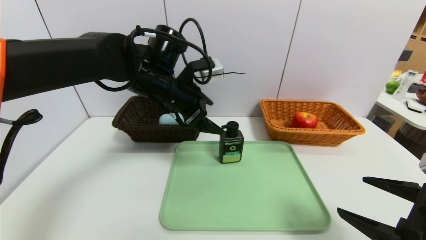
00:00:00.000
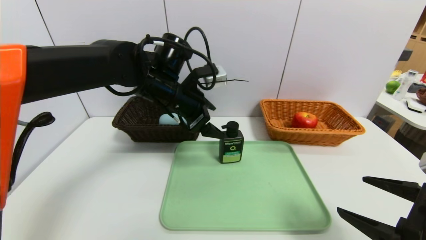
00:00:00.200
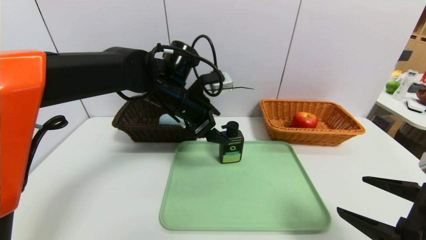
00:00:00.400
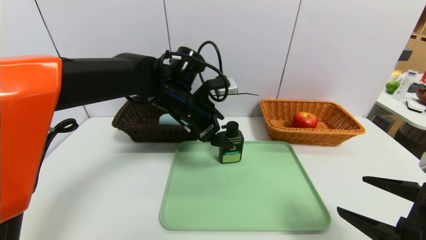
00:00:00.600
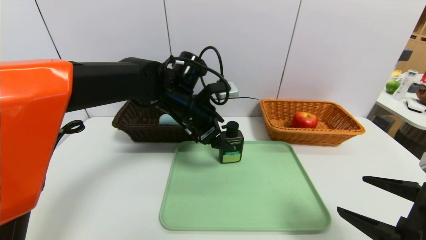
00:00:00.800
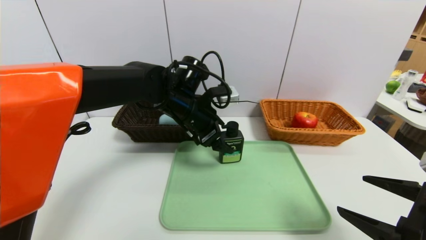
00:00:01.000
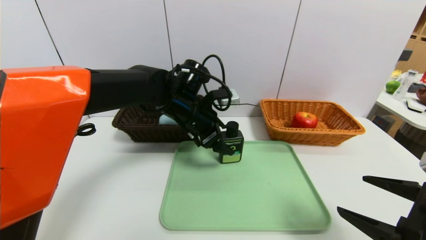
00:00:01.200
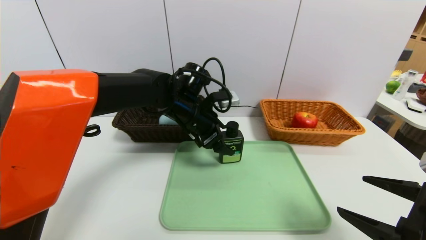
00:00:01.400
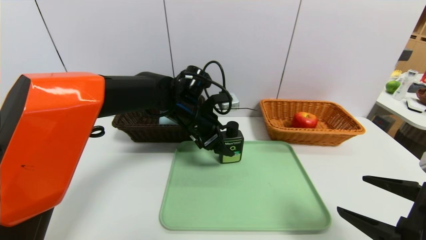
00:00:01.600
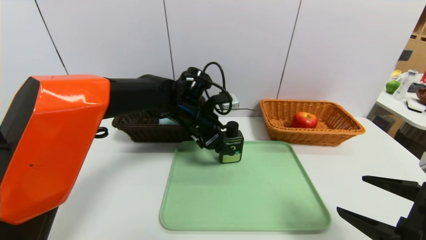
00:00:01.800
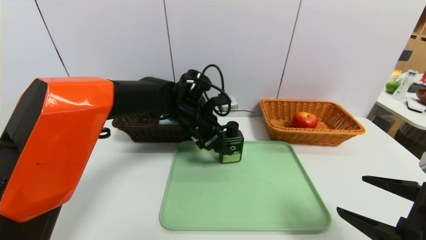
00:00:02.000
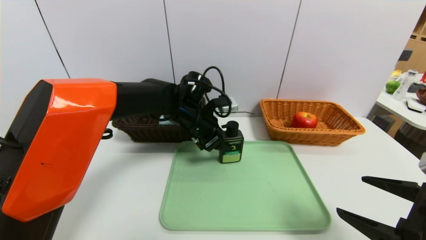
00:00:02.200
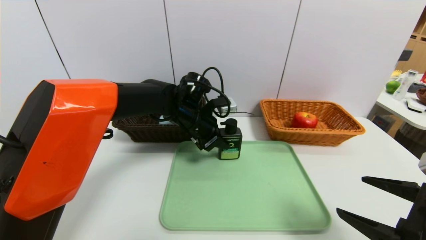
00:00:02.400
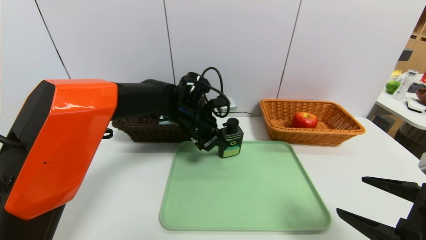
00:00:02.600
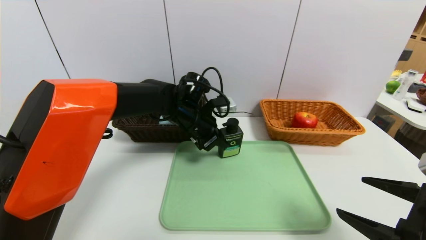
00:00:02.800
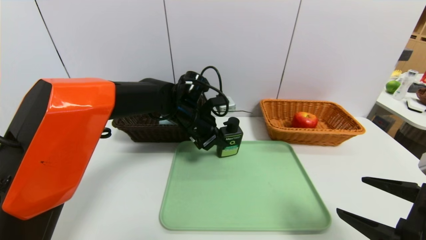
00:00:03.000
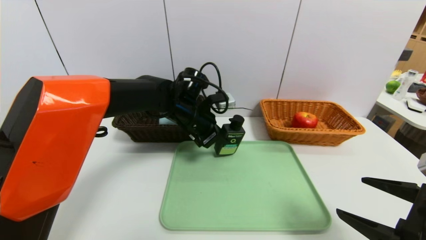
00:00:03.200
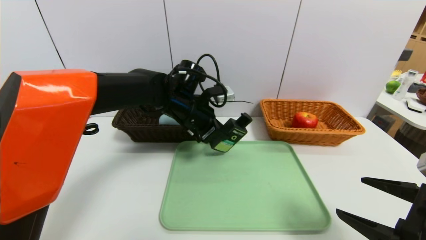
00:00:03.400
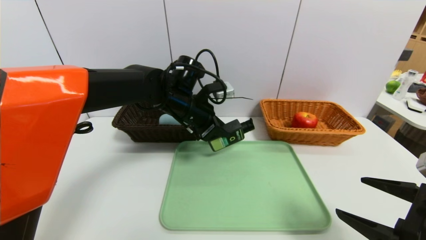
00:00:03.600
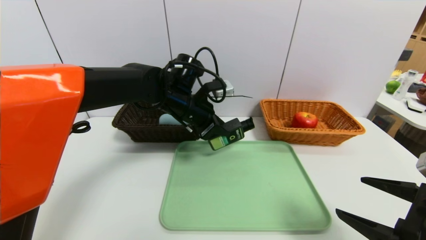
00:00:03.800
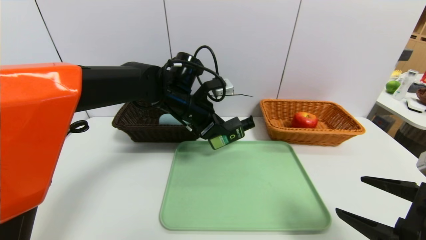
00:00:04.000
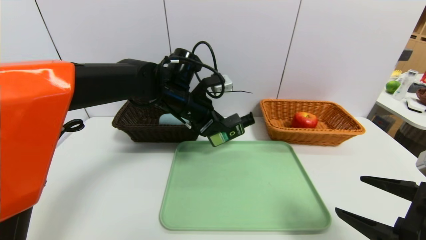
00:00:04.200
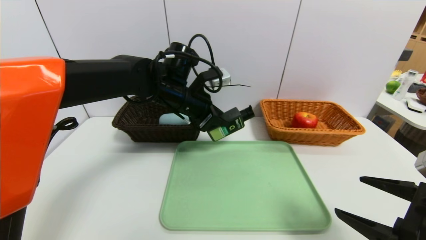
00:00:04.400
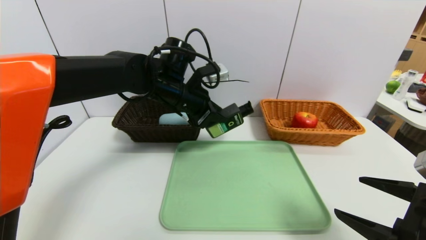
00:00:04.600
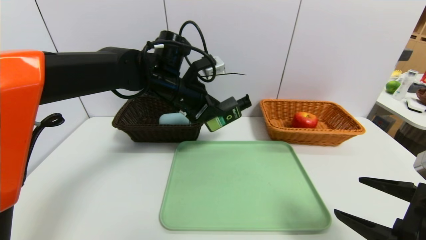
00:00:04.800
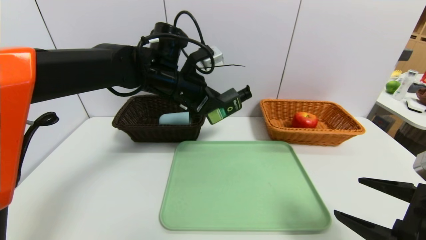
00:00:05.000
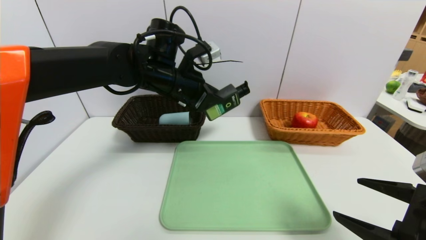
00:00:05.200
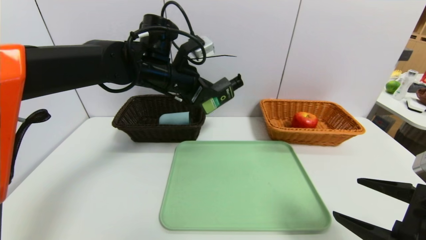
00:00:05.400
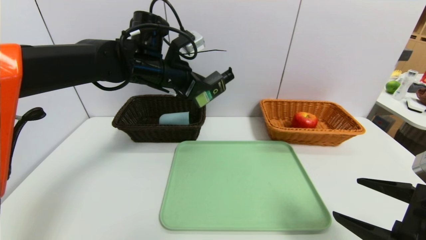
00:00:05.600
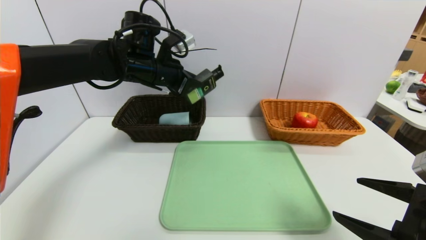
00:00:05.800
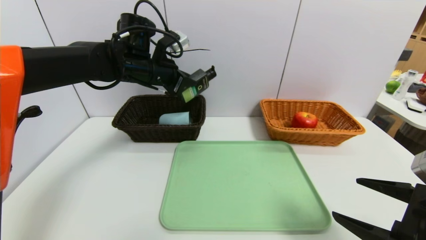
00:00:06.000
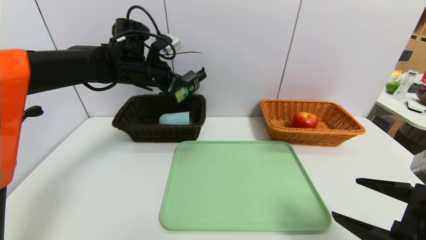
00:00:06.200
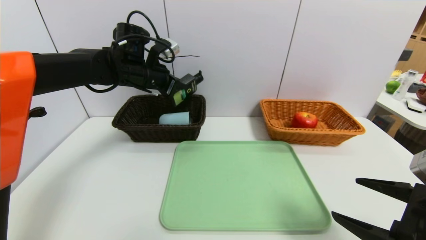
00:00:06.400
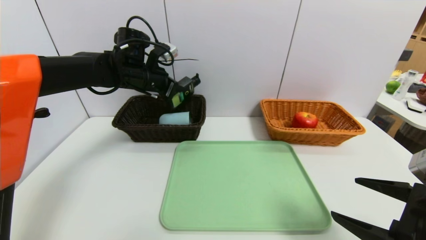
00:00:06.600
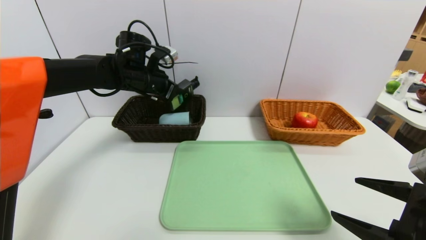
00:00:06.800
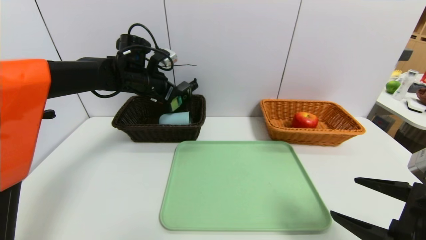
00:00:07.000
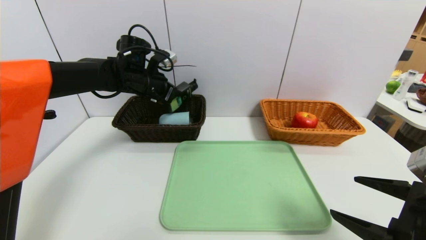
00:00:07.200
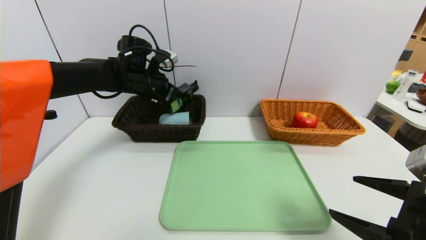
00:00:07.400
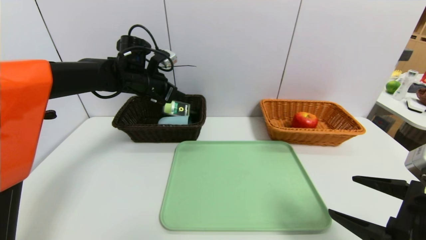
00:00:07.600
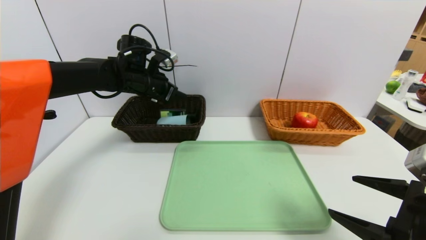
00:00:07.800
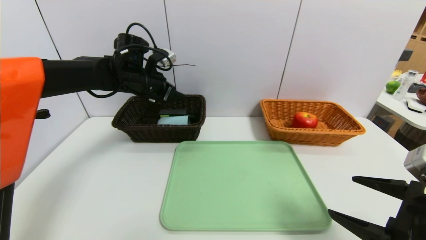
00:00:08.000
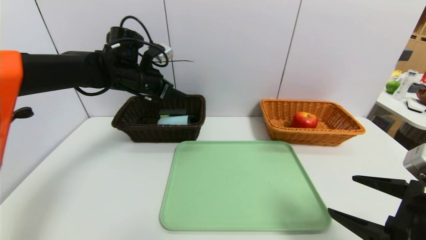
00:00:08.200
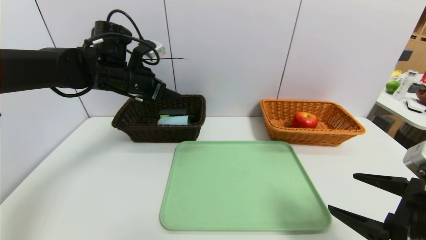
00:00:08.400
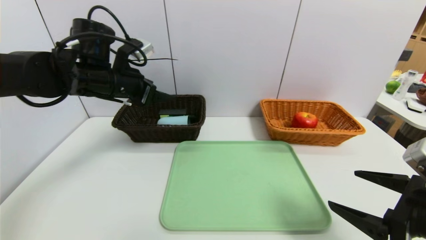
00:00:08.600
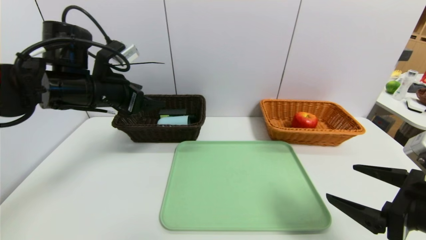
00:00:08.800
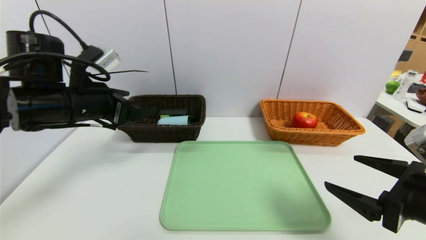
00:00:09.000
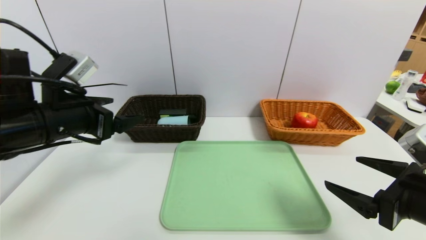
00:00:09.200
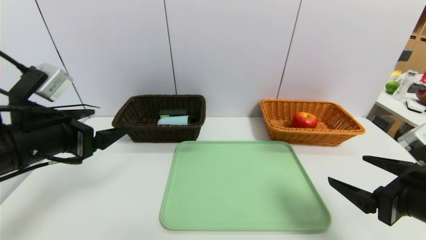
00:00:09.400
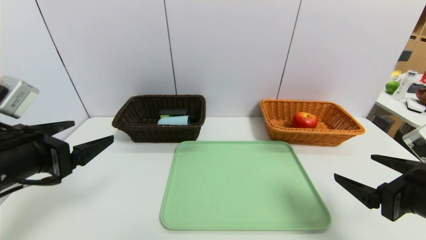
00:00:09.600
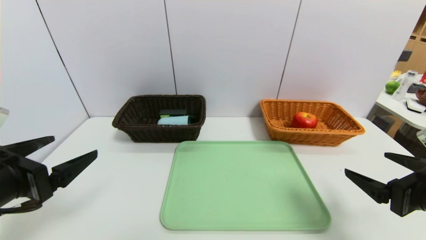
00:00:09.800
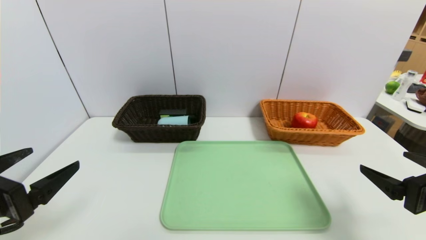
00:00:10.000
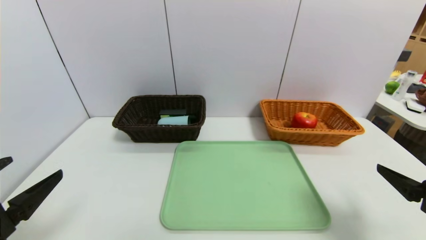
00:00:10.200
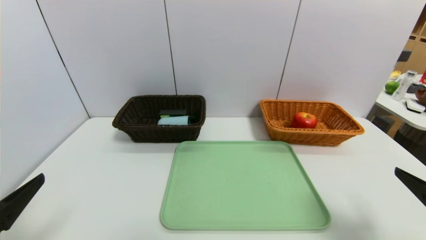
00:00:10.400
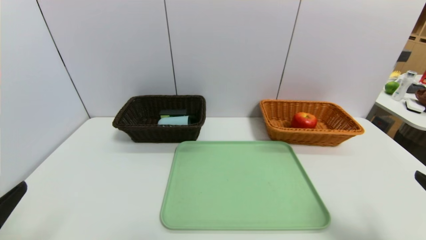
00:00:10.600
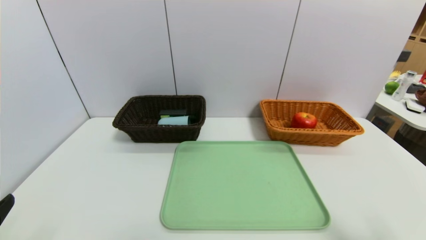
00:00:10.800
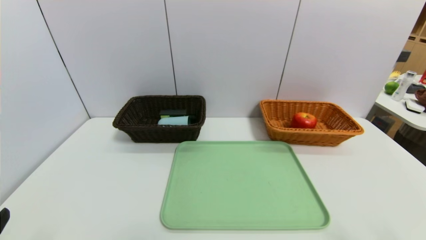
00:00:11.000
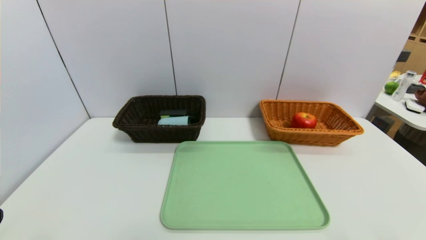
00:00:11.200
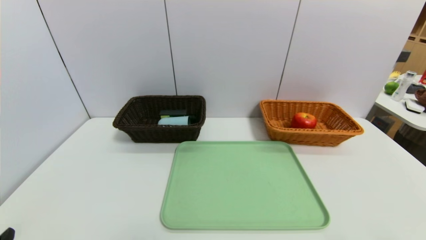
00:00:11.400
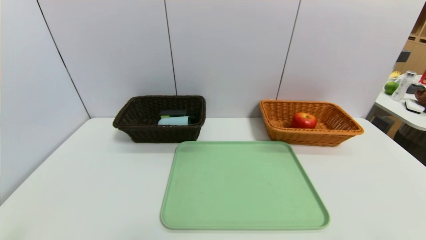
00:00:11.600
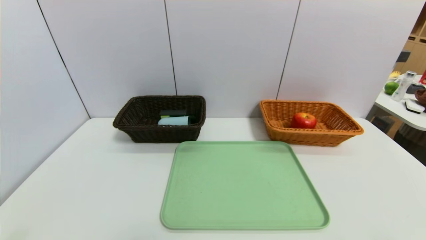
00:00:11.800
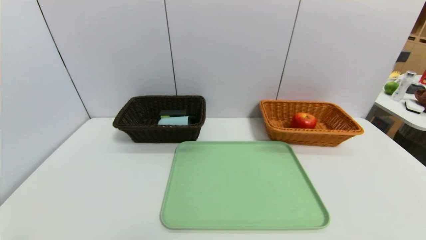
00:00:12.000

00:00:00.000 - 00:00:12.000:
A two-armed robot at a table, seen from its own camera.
Task of the whole recording: place the food in the right basket with the right gripper, and place the non food items in the left basket with the left gripper.
Step, 00:00:00.000 - 00:00:07.800: Grasp the hard cleanser and put it in the left basket.
00:00:00.000 - 00:00:01.600: The left gripper moves downward, roughly 5 cm.
00:00:01.600 - 00:00:03.000: The left gripper closes up.
00:00:03.000 - 00:00:04.400: The left gripper moves upward, about 5 cm.
00:00:04.400 - 00:00:06.000: The left gripper shifts roughly 10 cm to the left.
00:00:06.000 - 00:00:07.600: The left gripper moves some 5 cm.
00:00:07.600 - 00:00:09.000: The left gripper goes approximately 20 cm backward, and opens.
00:00:09.000 - 00:00:10.400: The right gripper heads to the right, covering approximately 5 cm, while the left gripper shifts roughly 20 cm backward.
00:00:10.400 - 00:00:12.000: The left gripper heads backward and downward, covering about 10 cm. The right gripper is displaced backward by roughly 10 cm.

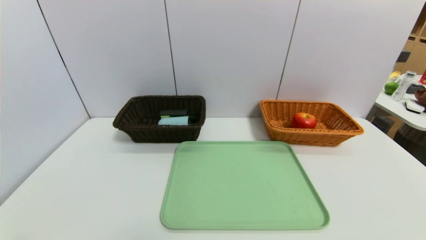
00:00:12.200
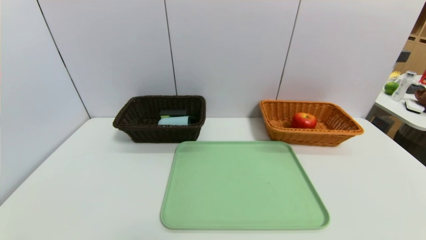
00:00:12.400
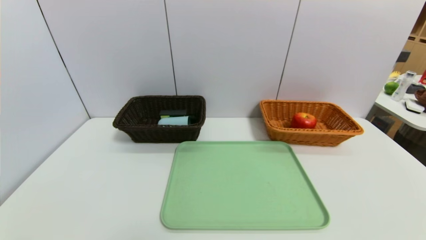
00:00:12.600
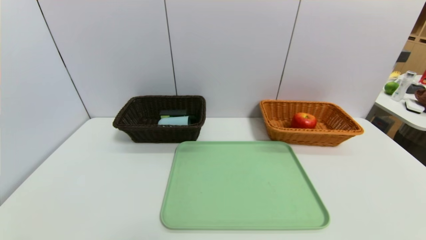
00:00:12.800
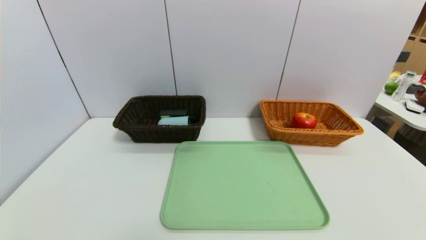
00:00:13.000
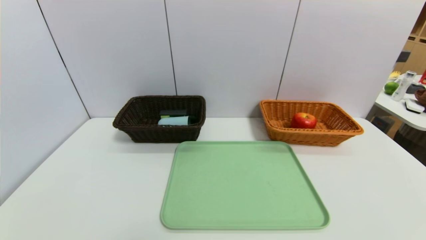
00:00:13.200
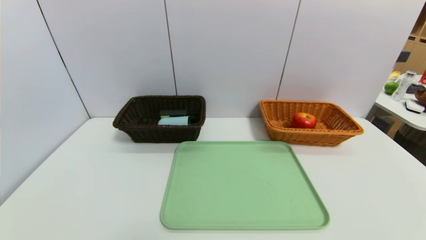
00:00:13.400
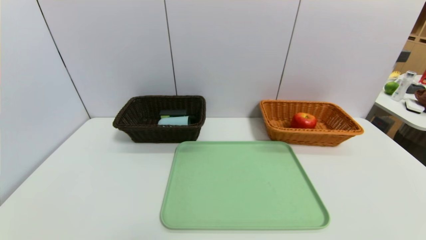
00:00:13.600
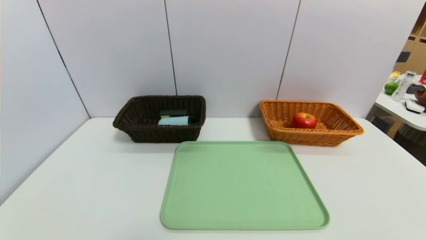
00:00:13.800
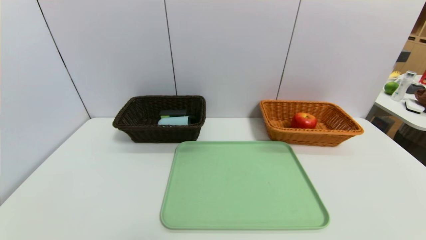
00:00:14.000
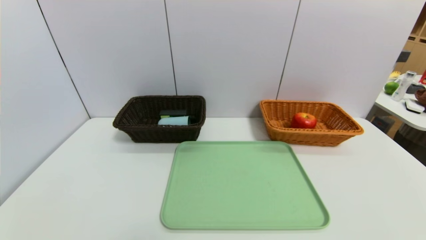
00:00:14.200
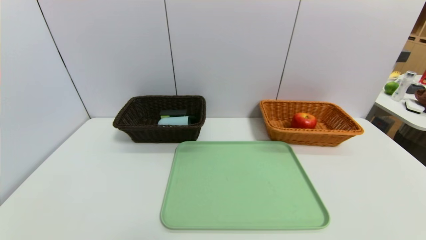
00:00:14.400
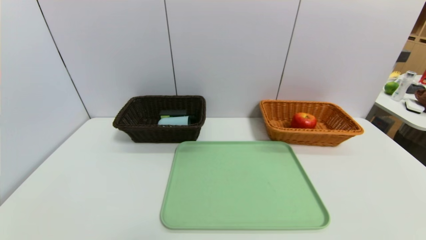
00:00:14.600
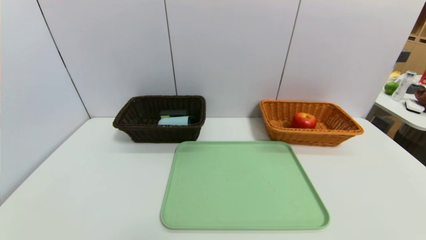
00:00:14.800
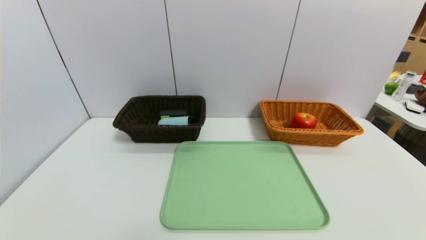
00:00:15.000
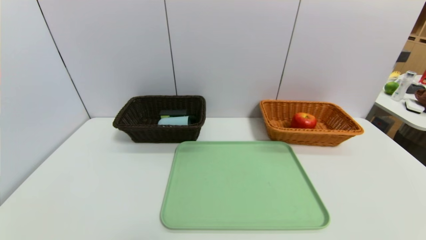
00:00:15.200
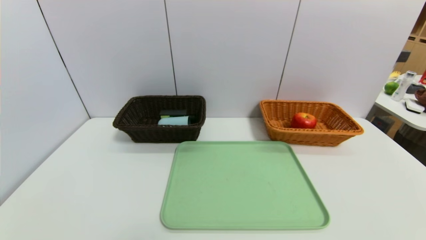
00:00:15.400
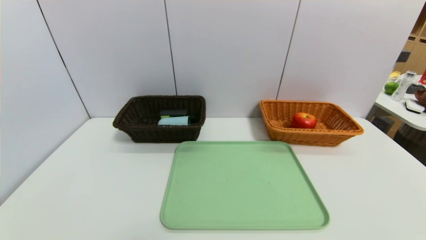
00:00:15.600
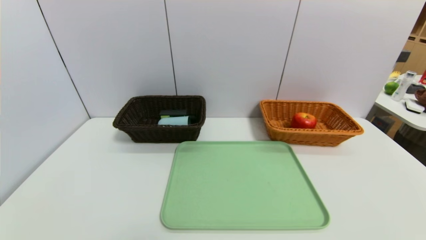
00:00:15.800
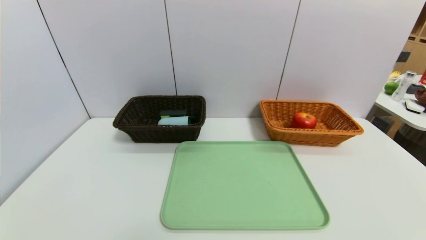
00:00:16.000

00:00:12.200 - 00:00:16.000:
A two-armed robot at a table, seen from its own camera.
Task of the whole recording: place the food in the right basket with the right gripper, and place the non food items in the left basket with the left gripper.
00:00:13.400 - 00:00:14.800: Both grippers stay about where they are.
00:00:14.800 - 00:00:16.000: Neither gripper changes place.

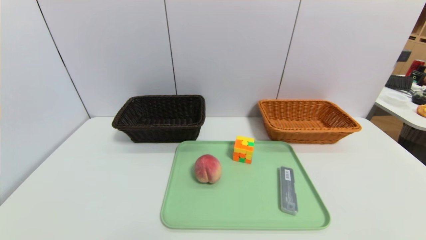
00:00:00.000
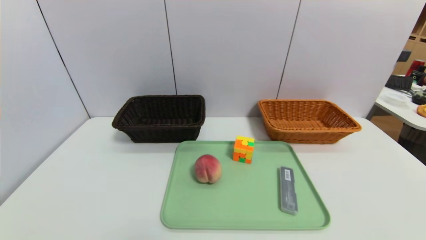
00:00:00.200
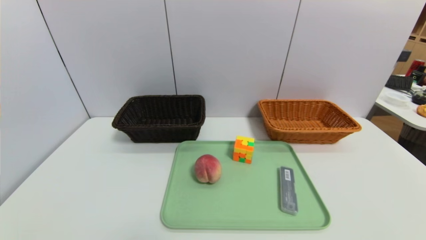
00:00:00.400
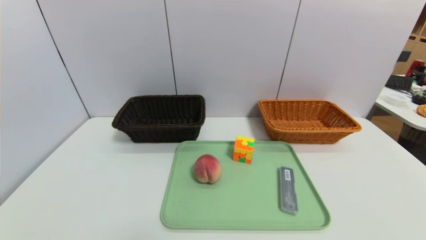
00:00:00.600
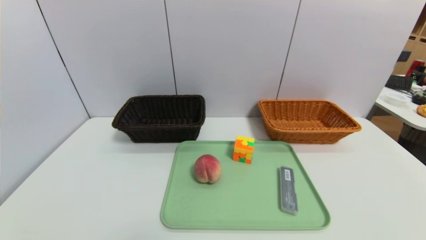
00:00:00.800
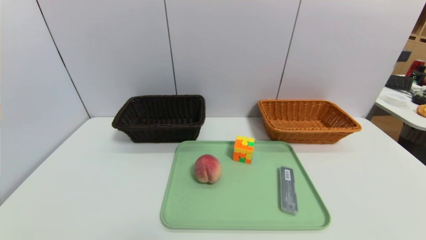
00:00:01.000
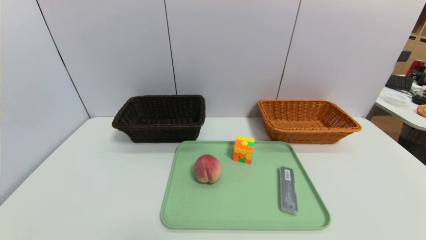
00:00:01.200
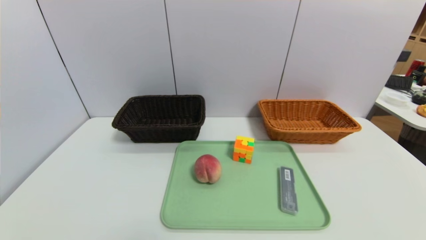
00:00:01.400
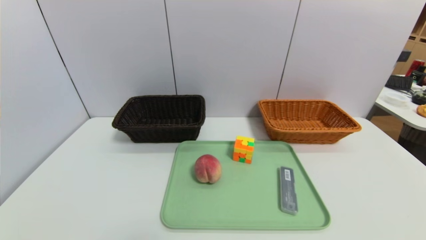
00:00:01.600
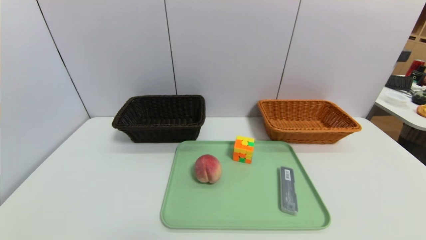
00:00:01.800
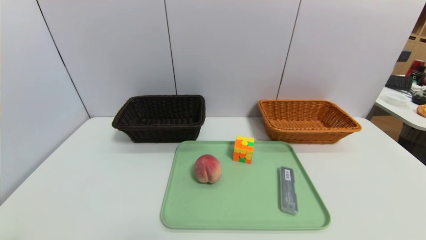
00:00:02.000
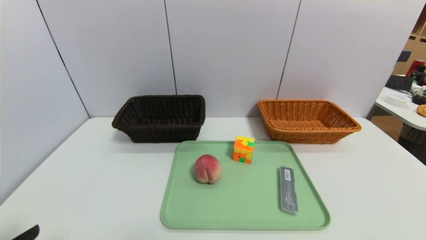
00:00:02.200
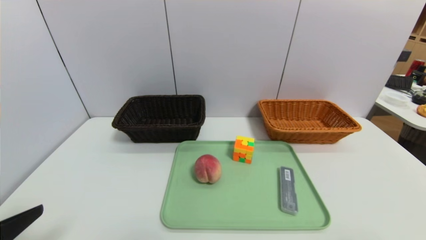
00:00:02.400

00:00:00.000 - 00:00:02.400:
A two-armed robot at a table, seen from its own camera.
Task of the whole recording: place the food in the right basket with the right gripper, and place the non food items in the left basket with the left gripper.
00:00:01.200 - 00:00:02.400: The left gripper shifts approximately 15 cm upward and forward.
